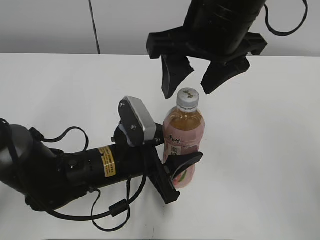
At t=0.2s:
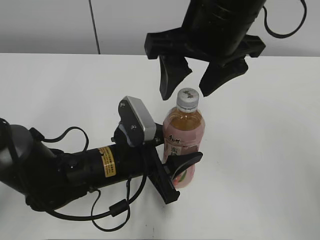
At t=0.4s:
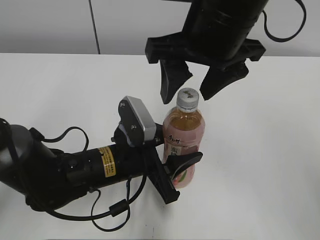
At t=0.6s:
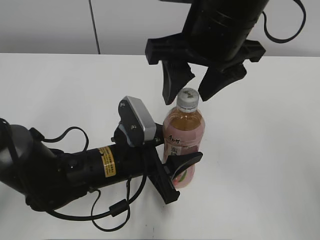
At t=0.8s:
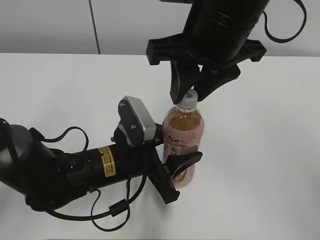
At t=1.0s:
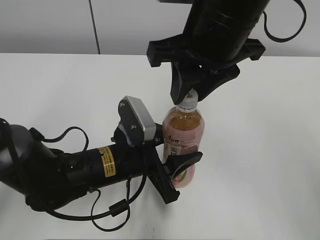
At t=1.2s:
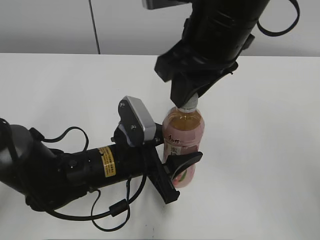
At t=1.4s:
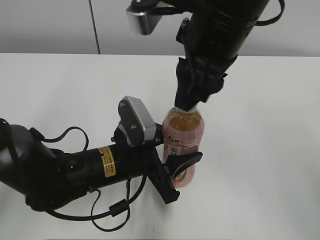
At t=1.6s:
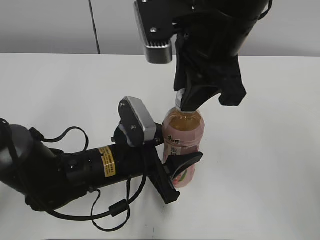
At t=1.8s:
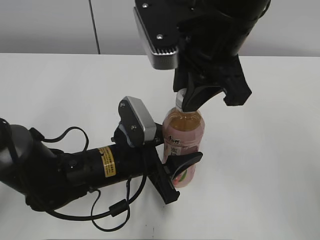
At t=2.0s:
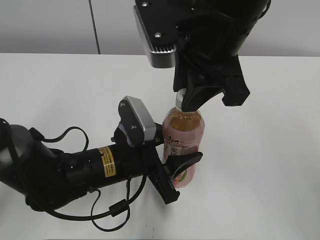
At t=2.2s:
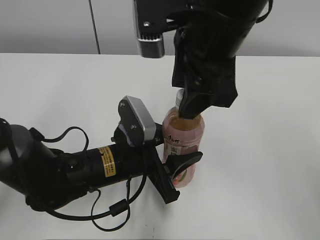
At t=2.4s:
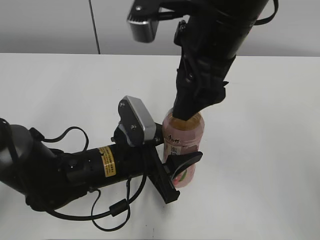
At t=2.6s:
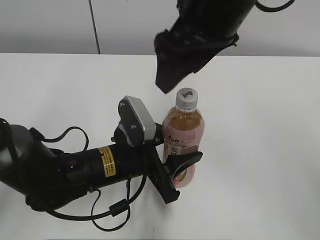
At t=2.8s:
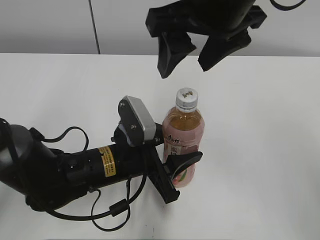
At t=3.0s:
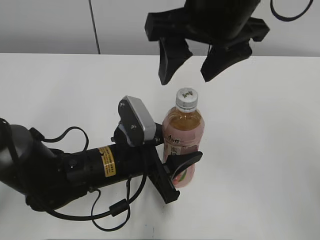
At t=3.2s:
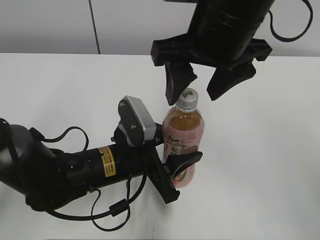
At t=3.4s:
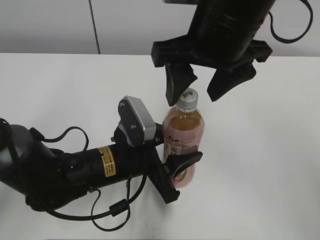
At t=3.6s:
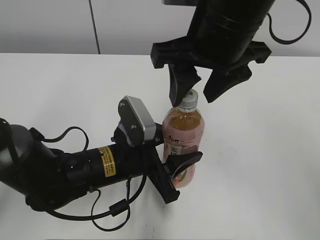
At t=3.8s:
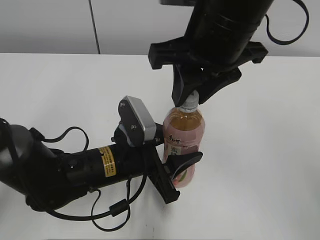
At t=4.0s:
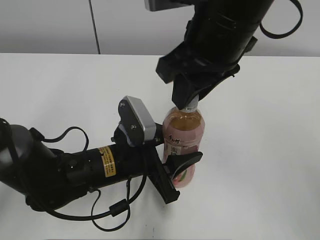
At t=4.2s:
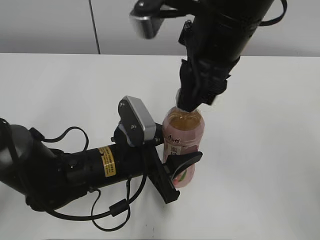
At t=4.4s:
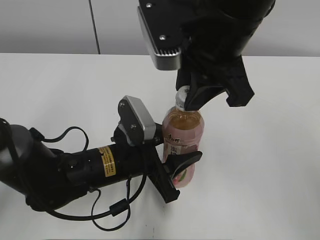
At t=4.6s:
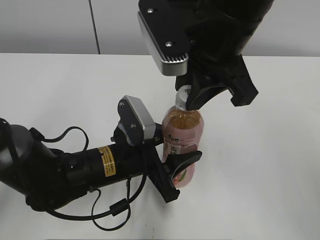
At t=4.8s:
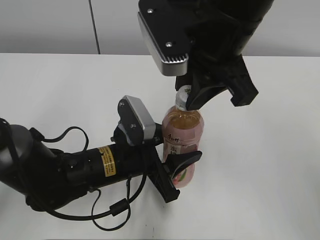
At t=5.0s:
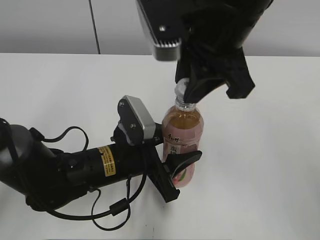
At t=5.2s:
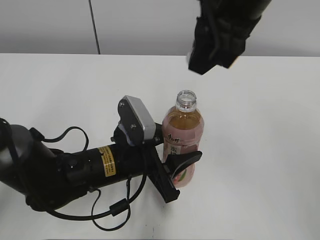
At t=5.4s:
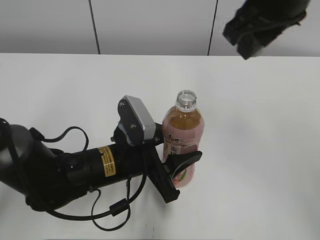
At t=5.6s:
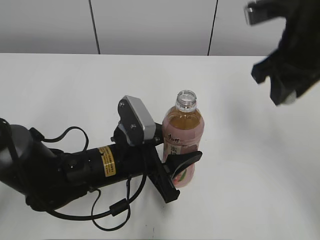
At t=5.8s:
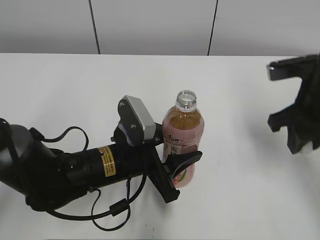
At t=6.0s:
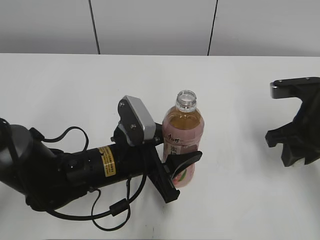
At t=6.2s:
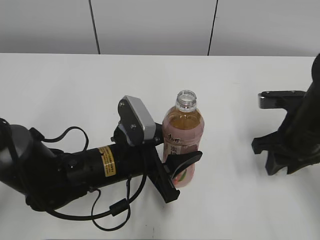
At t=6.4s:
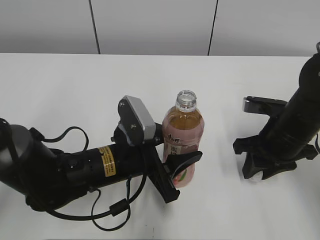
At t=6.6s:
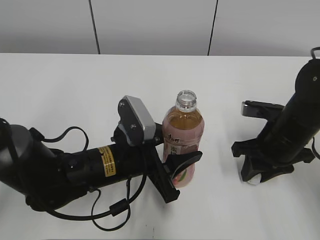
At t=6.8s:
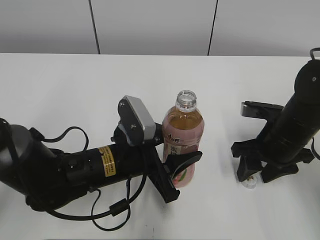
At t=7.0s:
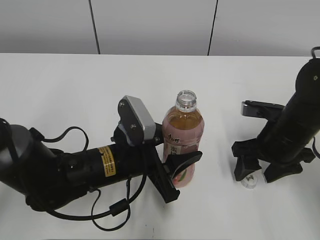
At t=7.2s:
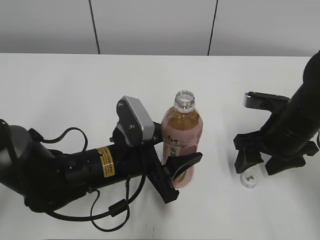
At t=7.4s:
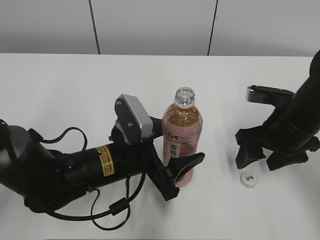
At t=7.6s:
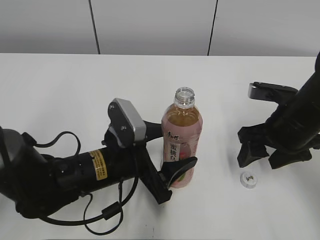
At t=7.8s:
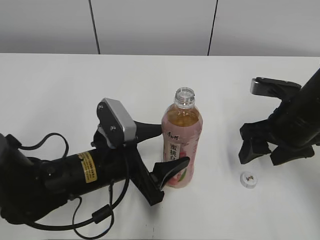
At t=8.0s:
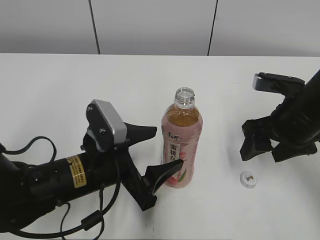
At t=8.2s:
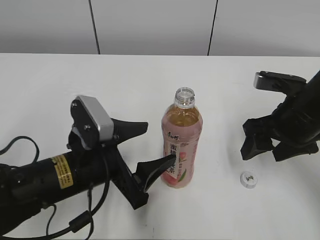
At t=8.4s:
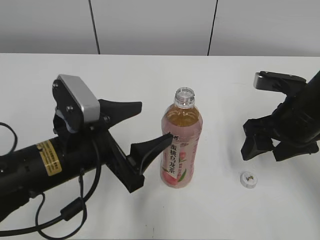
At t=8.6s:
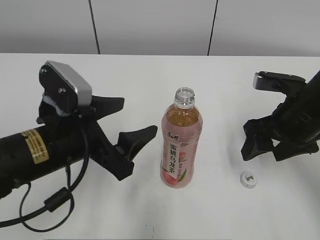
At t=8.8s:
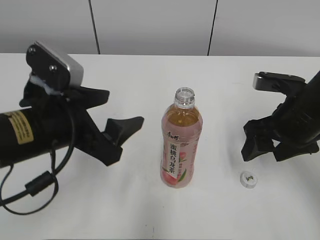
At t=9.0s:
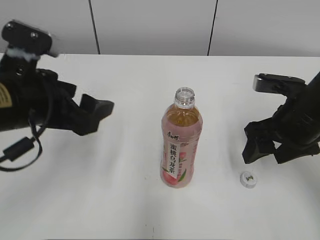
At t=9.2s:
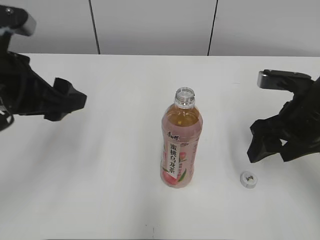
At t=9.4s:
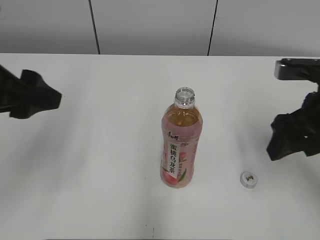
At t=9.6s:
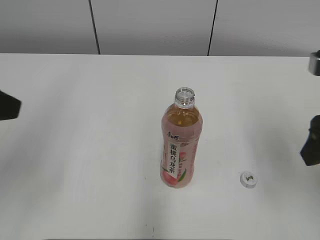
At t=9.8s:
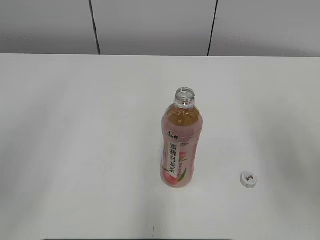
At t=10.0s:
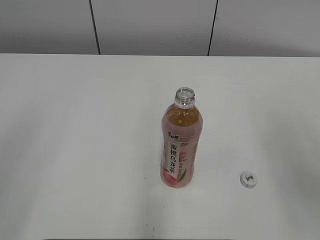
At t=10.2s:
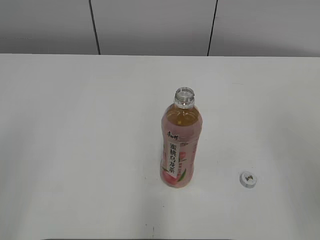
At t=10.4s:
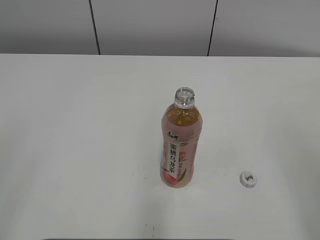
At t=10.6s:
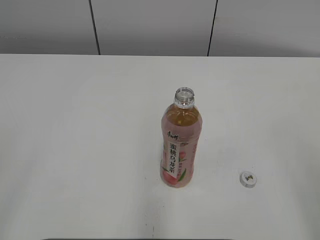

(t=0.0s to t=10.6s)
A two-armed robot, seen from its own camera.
Step, t=5.6s - t=7.0s: Place the bottle cap on the right.
Step, t=7.2s - t=8.2s: Place the Peach Oolong Tea with the left hand.
t=0.0s - t=1.6s: The right gripper closes its fingers.
t=1.6s - t=3.0s: The right gripper opens its fingers.
t=3.0s - t=4.6s: The right gripper closes.
t=4.6s - t=6.0s: The right gripper shifts some 20 cm to the right and downward.
t=6.0s - t=7.6s: The right gripper opens up; the left gripper opens its fingers.
t=7.6s - t=9.0s: The left gripper moves upward and to the left, about 15 cm.
t=9.0s - t=10.6s: The left gripper goes roughly 25 cm backward and to the left. Meanwhile the right gripper shifts about 25 cm backward and upward.
